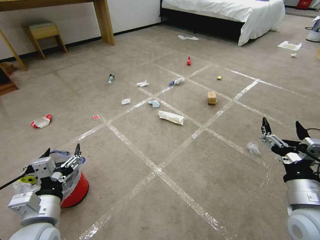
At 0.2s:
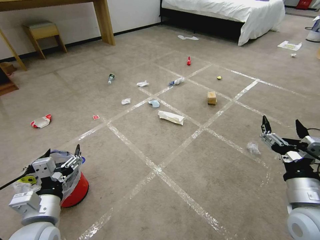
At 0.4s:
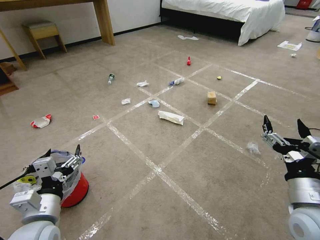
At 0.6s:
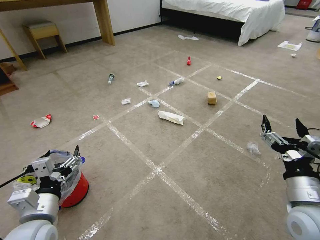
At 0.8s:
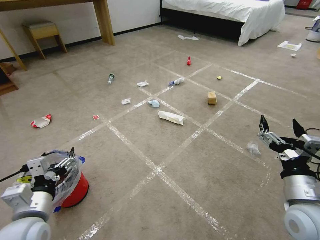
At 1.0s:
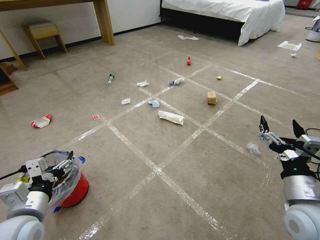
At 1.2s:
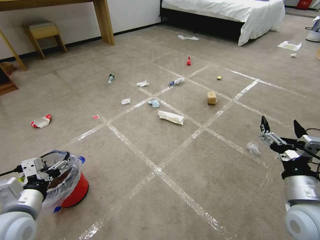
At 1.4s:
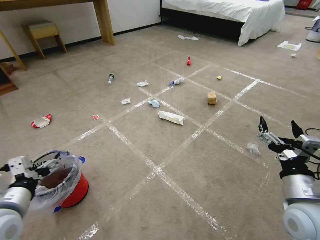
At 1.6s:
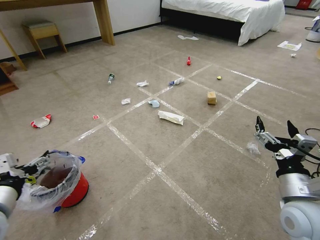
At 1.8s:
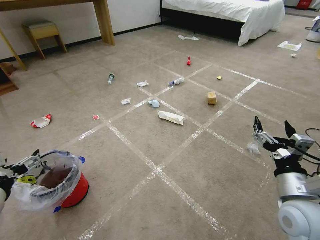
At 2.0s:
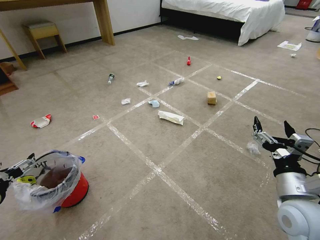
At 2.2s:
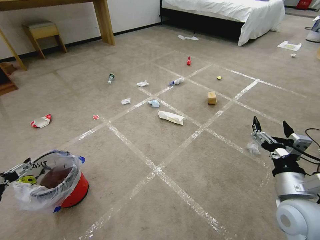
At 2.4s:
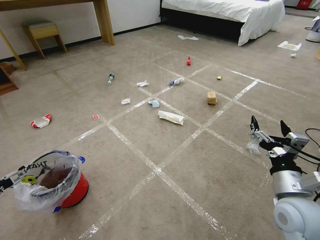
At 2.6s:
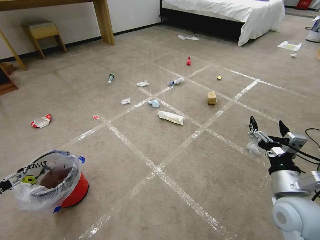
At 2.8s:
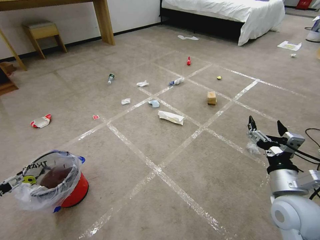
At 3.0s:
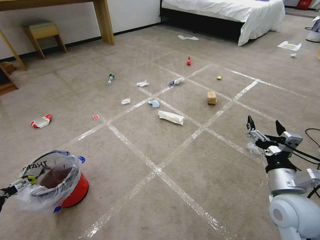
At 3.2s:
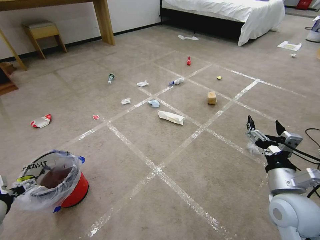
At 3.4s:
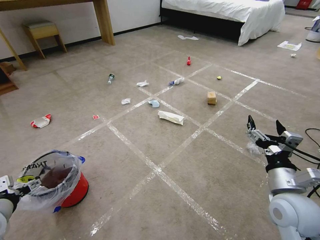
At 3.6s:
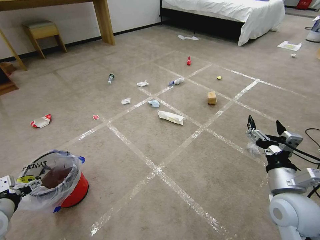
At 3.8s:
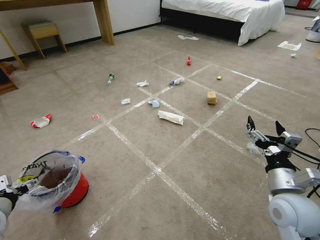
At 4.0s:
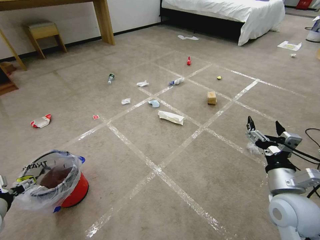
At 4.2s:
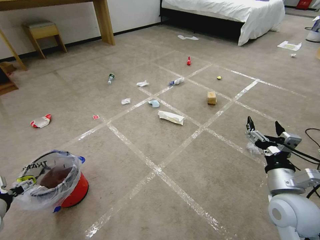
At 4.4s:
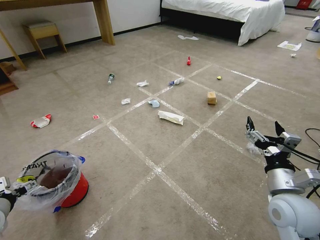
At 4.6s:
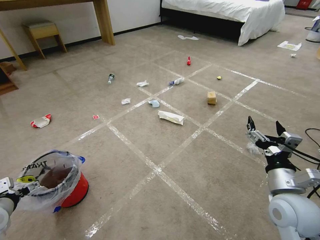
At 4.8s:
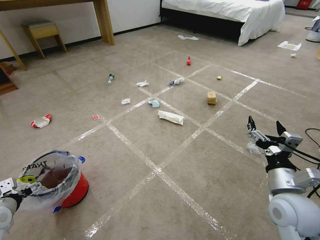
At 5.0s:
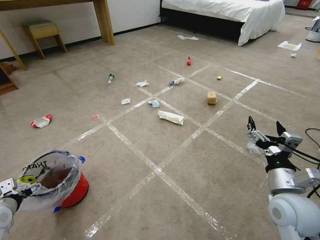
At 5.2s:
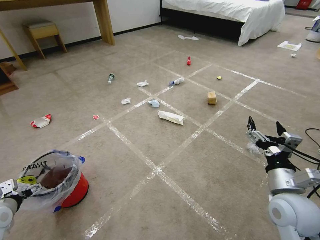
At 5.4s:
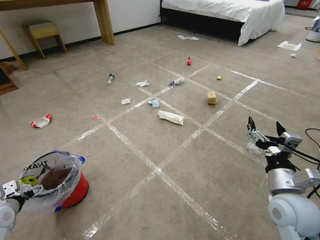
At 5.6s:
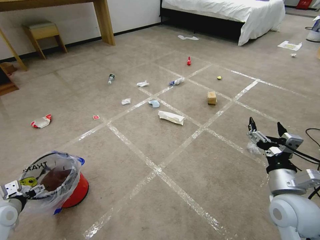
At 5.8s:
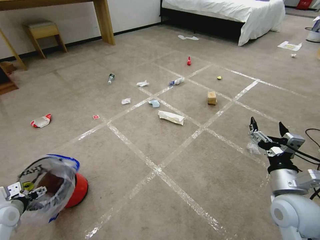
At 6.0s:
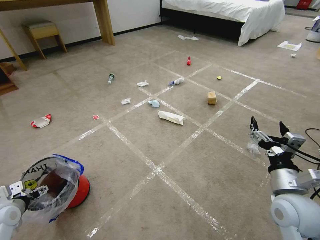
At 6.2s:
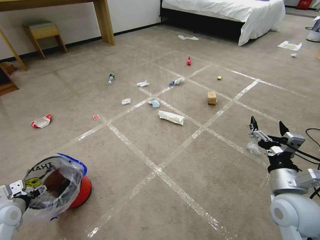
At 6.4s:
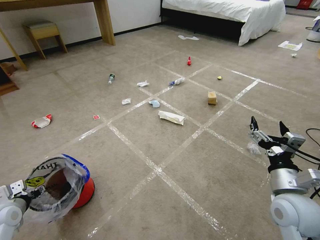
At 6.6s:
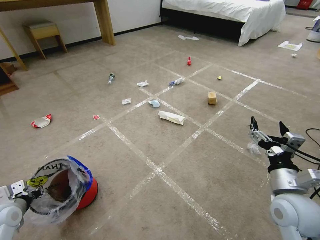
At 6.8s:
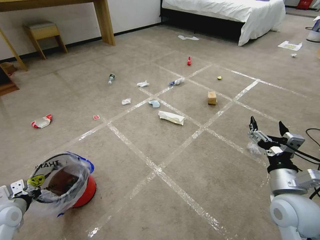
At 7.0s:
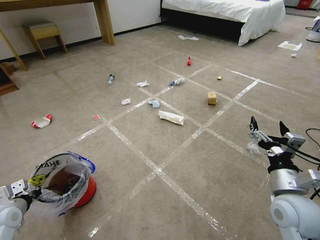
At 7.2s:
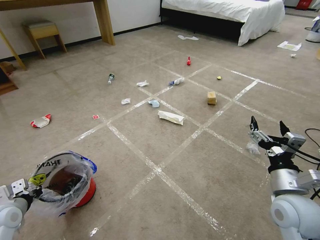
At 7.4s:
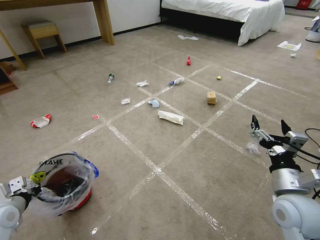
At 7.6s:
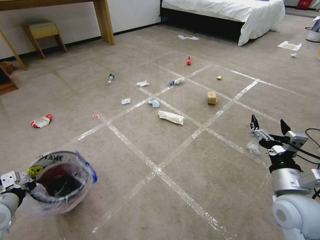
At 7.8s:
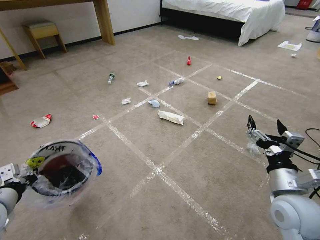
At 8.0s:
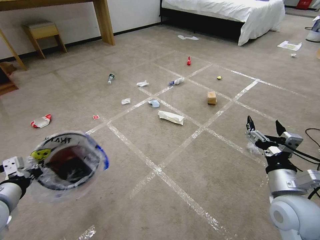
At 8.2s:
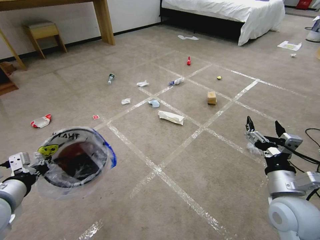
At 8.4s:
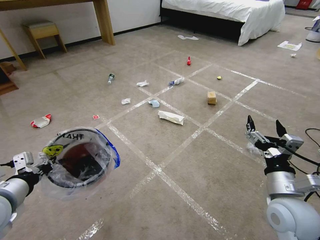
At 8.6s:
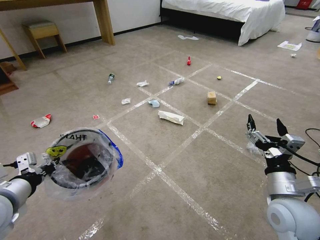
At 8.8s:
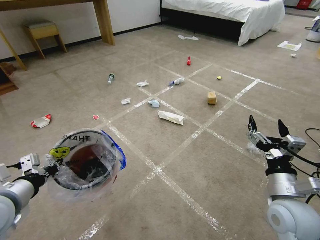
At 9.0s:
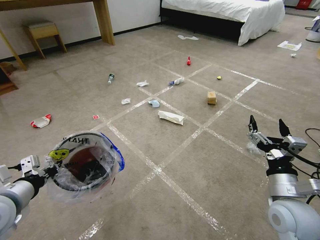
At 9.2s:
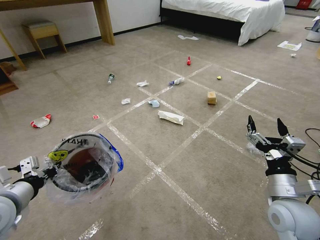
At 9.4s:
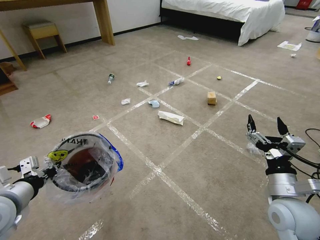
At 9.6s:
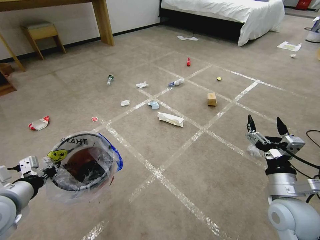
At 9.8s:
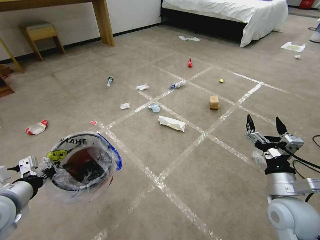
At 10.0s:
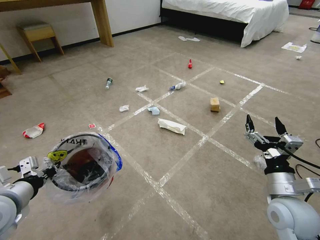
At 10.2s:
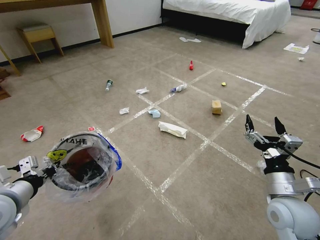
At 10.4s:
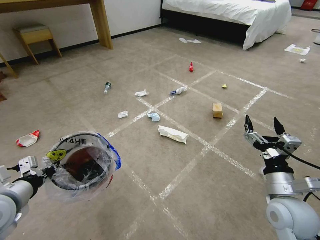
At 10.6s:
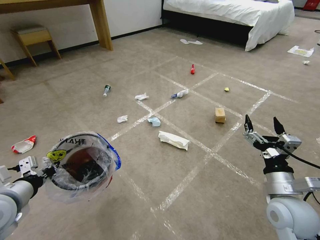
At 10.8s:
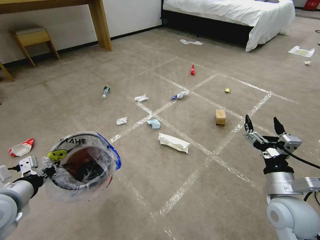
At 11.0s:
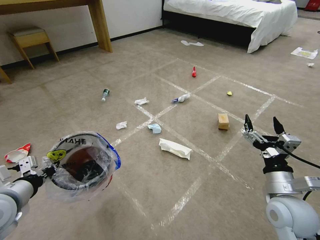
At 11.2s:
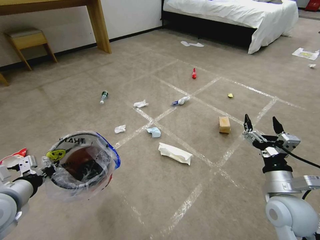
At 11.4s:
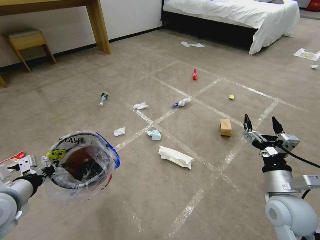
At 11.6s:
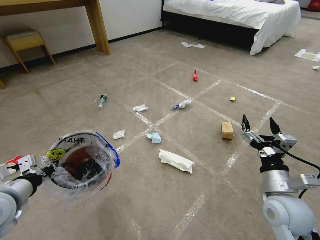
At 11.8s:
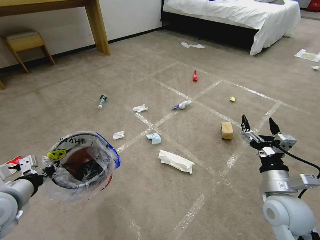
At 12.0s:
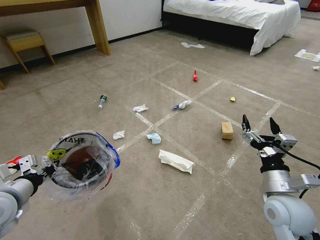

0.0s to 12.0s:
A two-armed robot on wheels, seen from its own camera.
Task of the whole recording: Pick up the trash bin and place the garbage on the floor into it.
1.6s to 3.0s: The left gripper heads to the left, covering roughly 10 cm.
3.0s to 4.4s: The left gripper moves roughly 5 cm.
4.4s to 6.0s: The left gripper moves downward, approximately 5 cm.
6.0s to 7.6s: The left gripper heads upward, covering about 5 cm, and closes.
7.6s to 9.0s: The left gripper heads upward and to the right, covering some 10 cm.

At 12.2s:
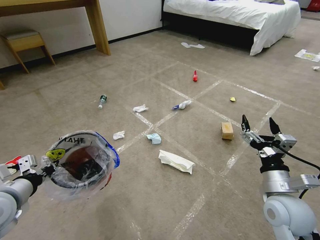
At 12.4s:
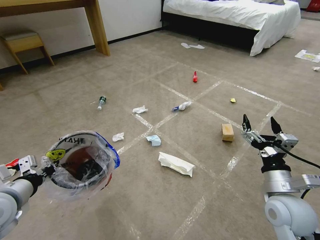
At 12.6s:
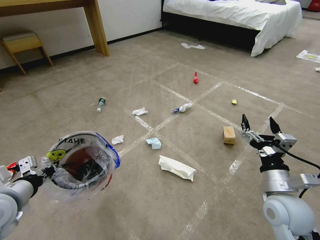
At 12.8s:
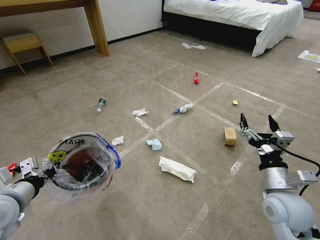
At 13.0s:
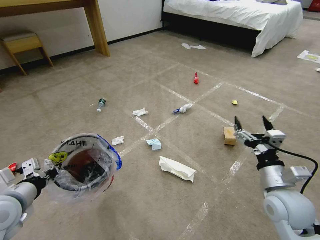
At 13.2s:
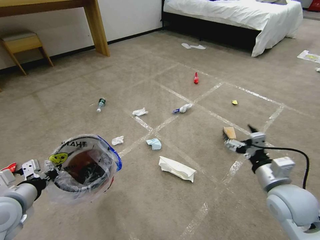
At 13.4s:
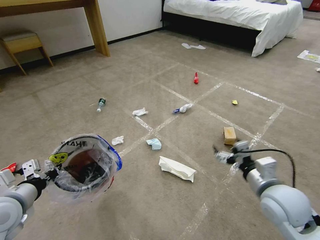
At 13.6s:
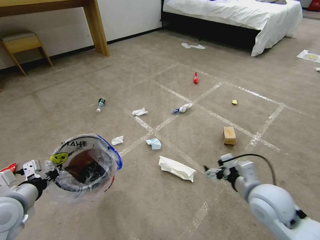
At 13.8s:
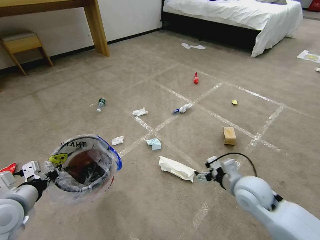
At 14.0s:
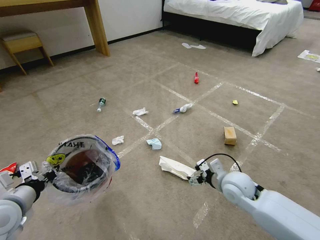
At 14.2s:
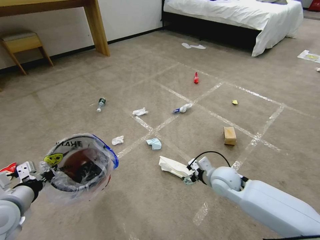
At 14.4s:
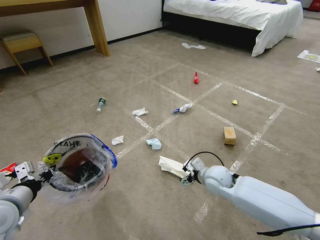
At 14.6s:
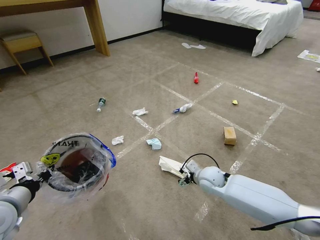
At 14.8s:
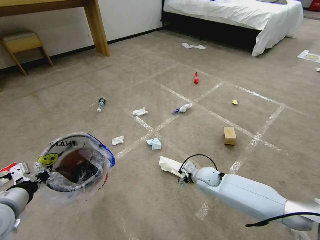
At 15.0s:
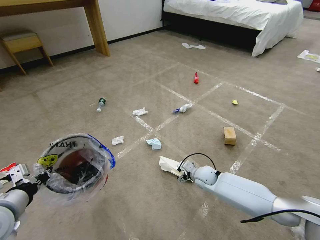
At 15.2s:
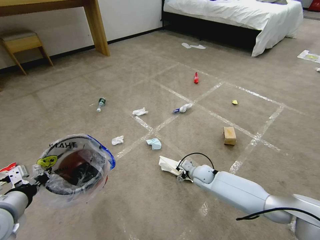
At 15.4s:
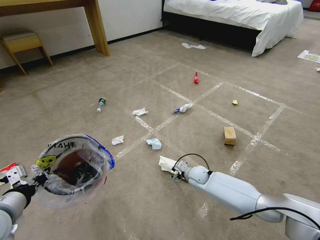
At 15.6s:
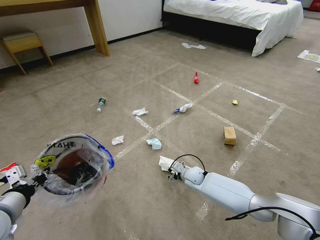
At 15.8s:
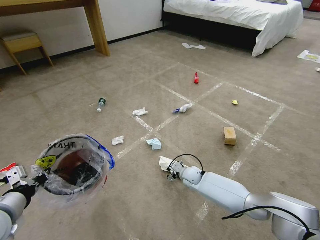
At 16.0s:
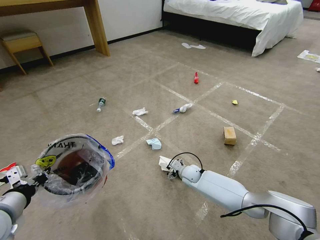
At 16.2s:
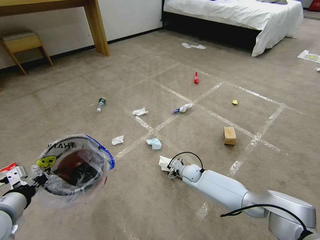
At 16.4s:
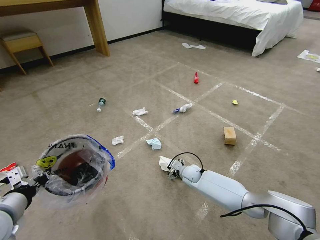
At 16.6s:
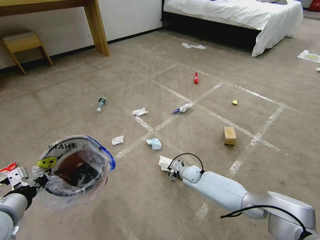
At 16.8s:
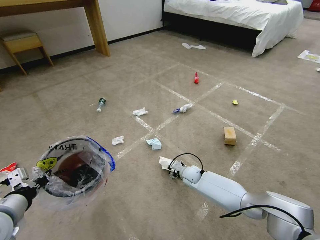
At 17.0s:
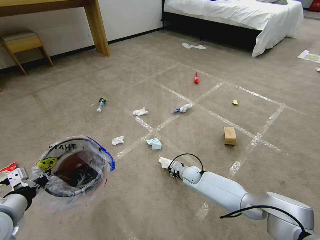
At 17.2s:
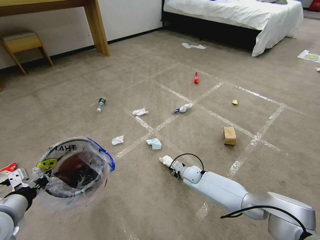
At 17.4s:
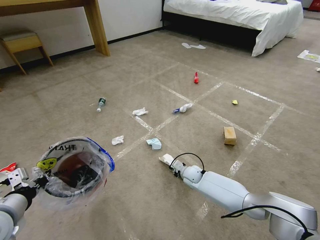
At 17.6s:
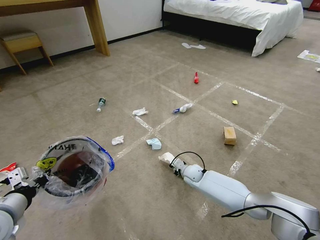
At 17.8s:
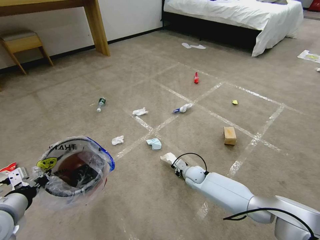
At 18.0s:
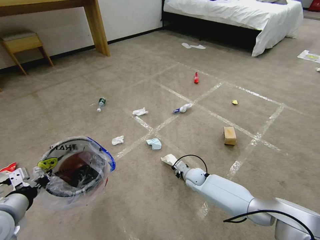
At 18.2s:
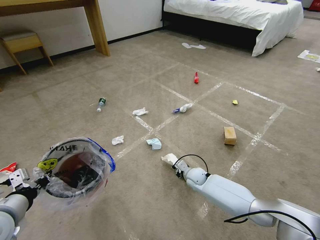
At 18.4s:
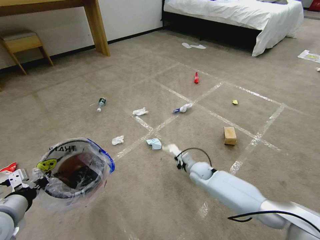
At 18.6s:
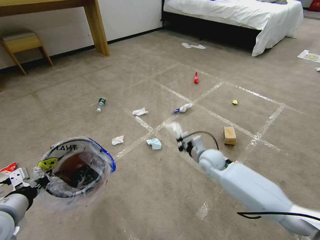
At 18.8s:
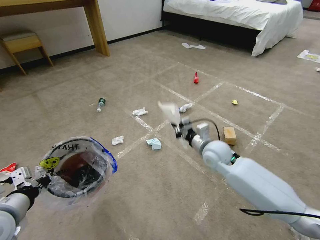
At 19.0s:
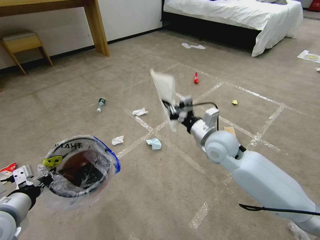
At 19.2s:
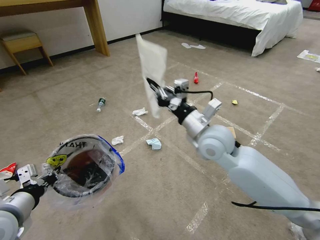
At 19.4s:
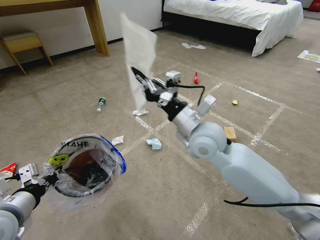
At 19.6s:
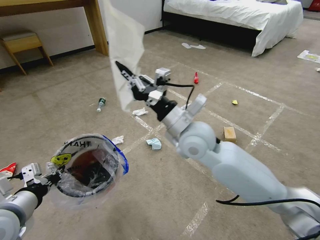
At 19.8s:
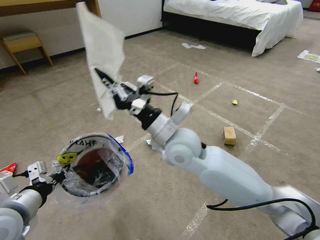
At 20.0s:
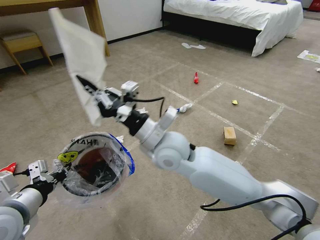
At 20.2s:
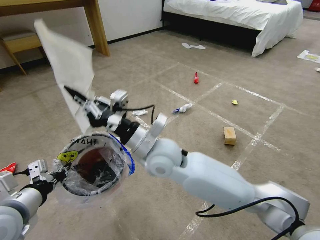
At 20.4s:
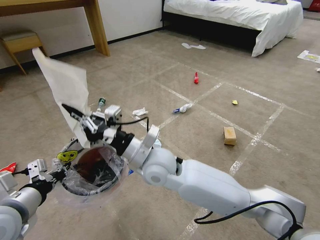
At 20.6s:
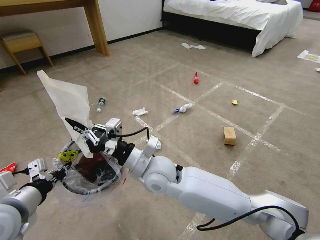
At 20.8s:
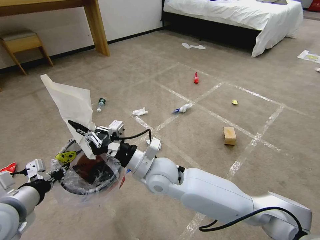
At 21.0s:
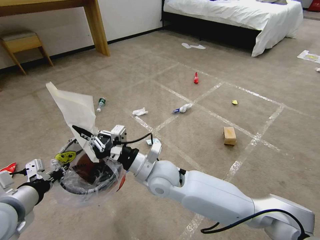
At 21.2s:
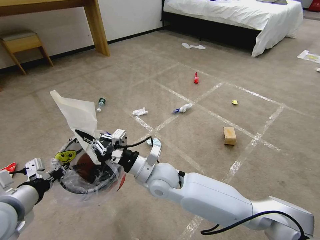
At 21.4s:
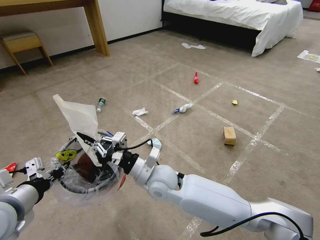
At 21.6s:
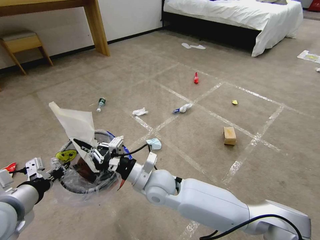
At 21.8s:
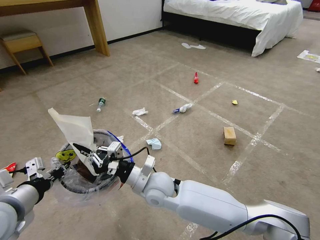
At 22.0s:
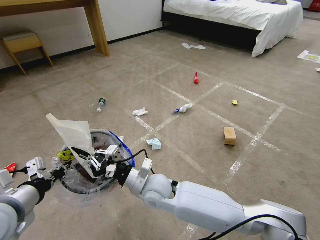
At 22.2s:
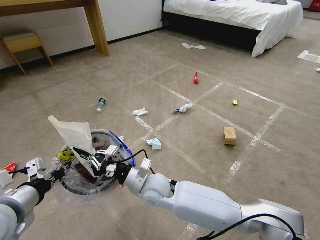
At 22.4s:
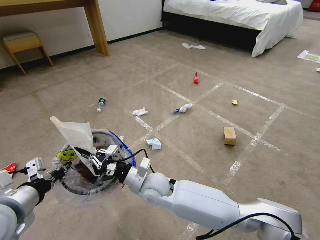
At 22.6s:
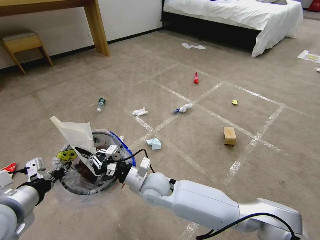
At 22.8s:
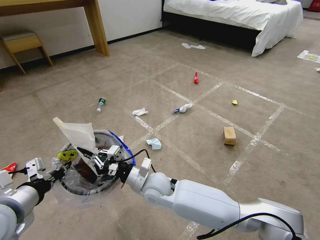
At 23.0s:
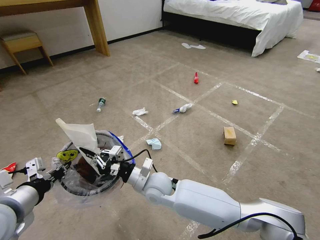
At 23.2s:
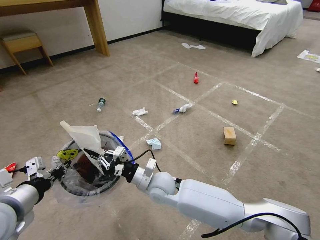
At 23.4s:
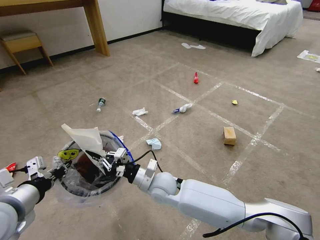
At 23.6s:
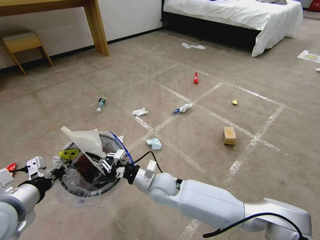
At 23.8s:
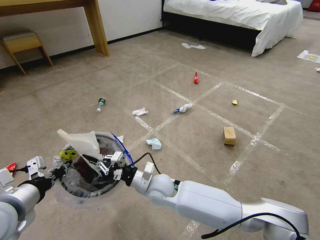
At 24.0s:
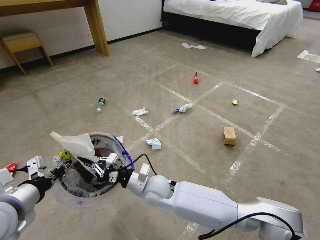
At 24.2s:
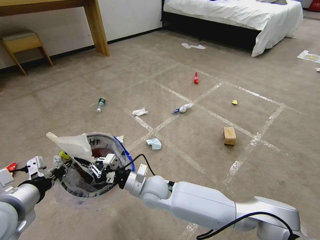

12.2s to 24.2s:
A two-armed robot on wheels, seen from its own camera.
Task of the whole recording: Pick up the trash bin and place the garbage on the floor into it.
12.2s to 13.8s: The right gripper travels forward and to the left by approximately 10 cm.
13.8s to 15.2s: The right gripper goes roughly 25 cm downward and forward.
15.2s to 16.6s: The right gripper shifts by about 5 cm.
16.6s to 18.2s: The right gripper closes up.
18.2s to 19.8s: The right gripper shifts roughly 35 cm upward.
19.8s to 21.2s: The right gripper travels downward and to the left by some 15 cm.
21.2s to 22.6s: The right gripper goes approximately 5 cm downward.
22.6s to 24.2s: There are only small adjustments of the grippers.
